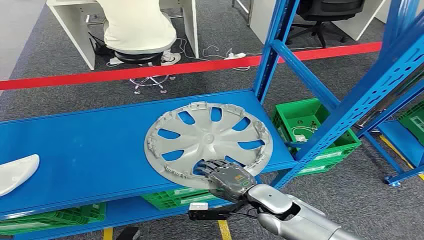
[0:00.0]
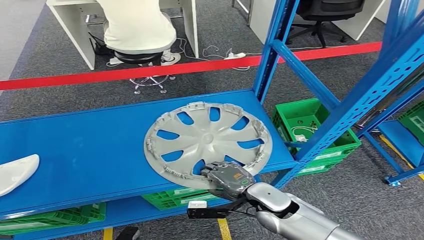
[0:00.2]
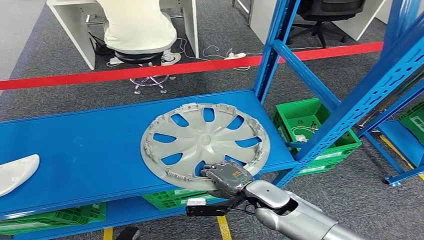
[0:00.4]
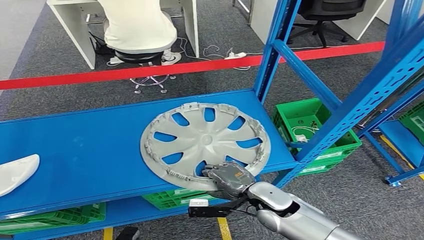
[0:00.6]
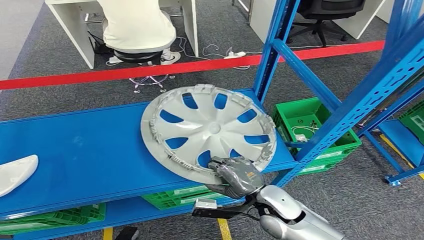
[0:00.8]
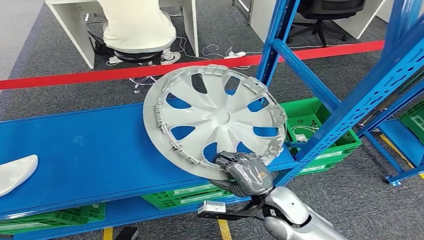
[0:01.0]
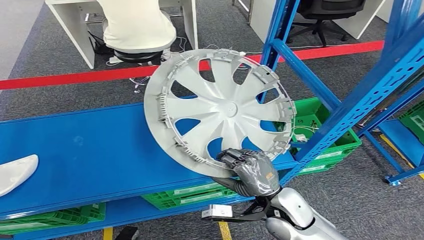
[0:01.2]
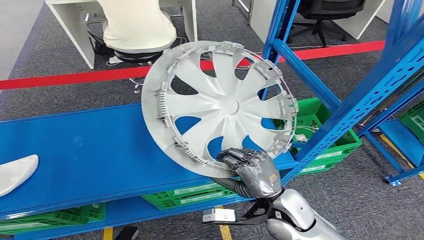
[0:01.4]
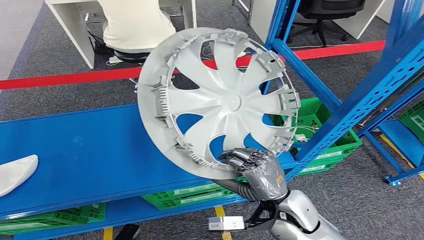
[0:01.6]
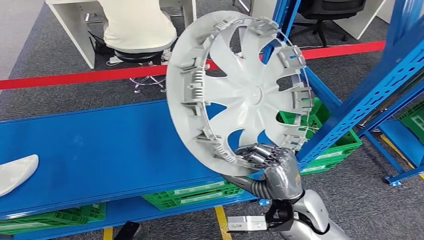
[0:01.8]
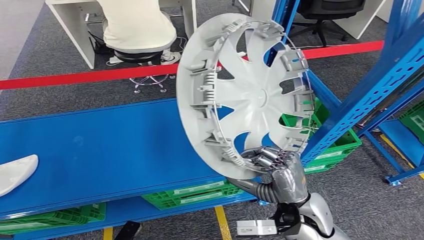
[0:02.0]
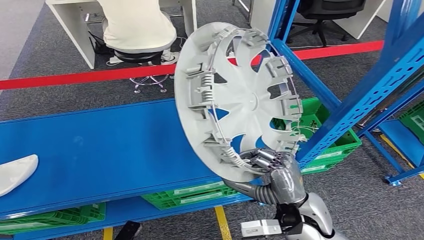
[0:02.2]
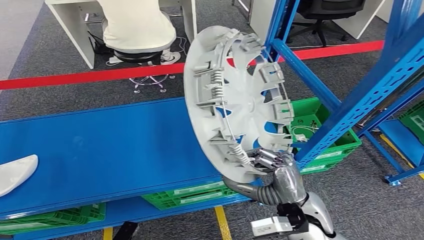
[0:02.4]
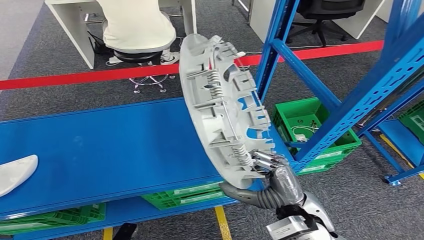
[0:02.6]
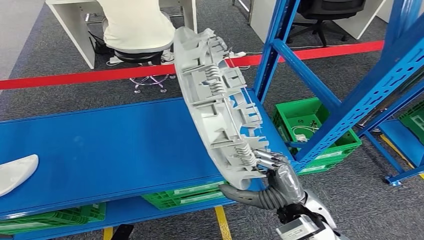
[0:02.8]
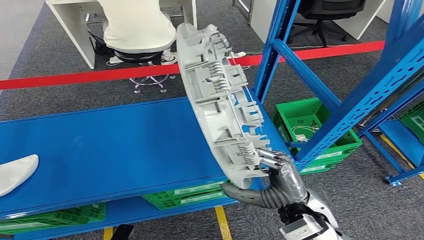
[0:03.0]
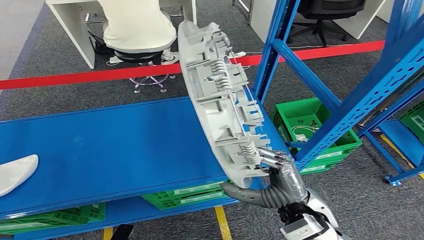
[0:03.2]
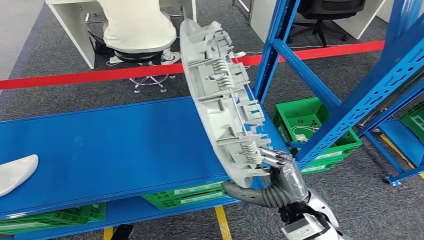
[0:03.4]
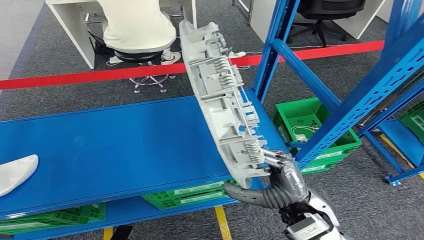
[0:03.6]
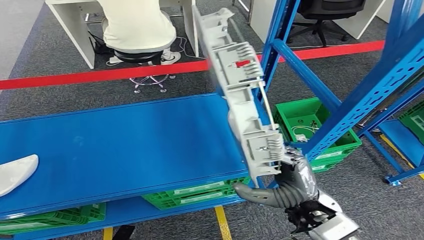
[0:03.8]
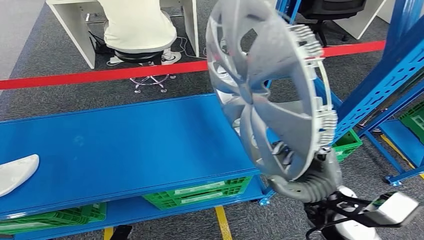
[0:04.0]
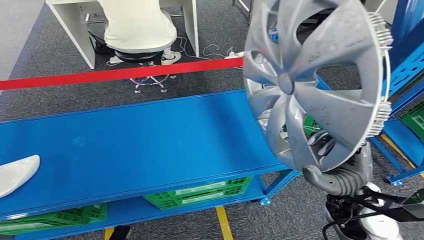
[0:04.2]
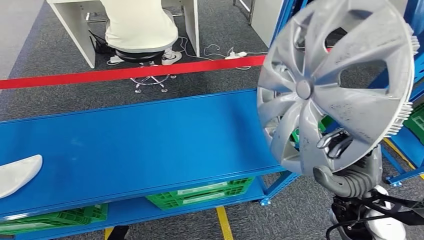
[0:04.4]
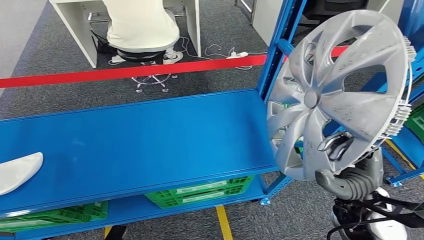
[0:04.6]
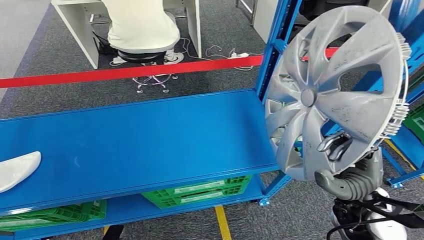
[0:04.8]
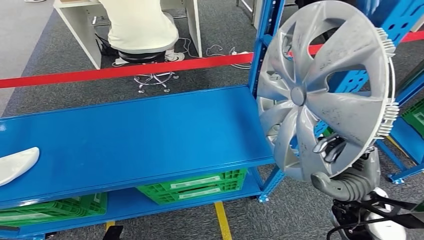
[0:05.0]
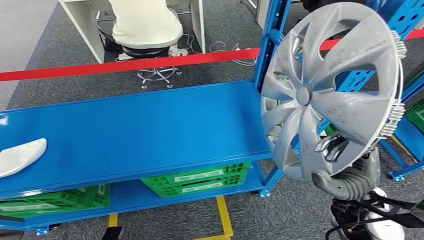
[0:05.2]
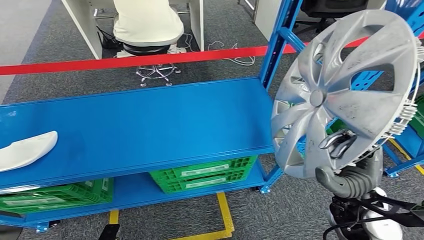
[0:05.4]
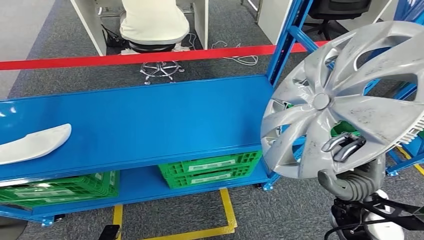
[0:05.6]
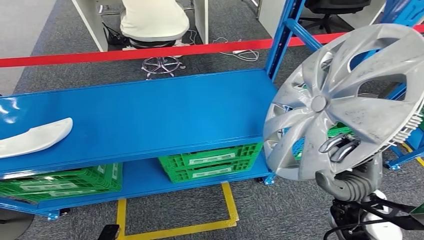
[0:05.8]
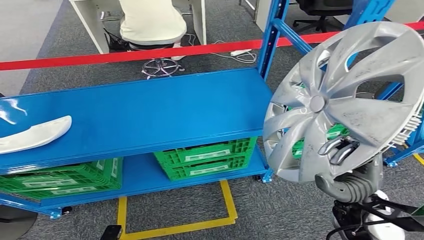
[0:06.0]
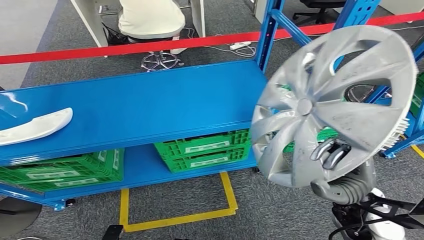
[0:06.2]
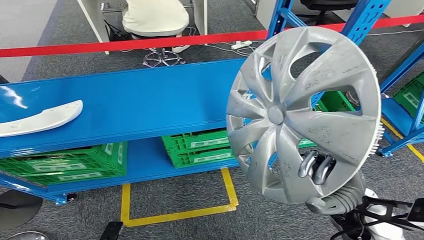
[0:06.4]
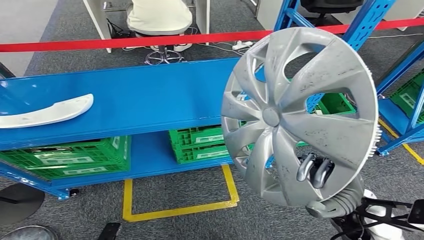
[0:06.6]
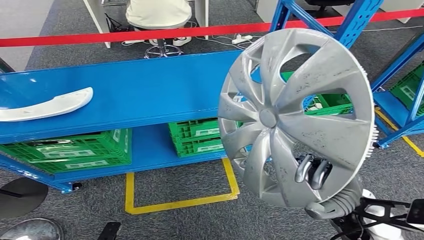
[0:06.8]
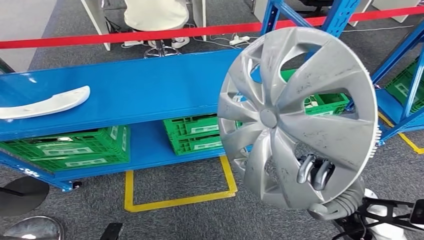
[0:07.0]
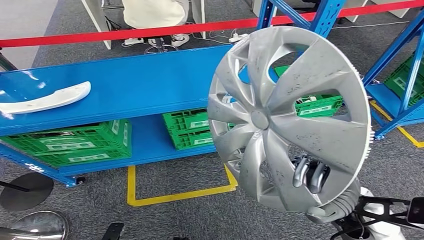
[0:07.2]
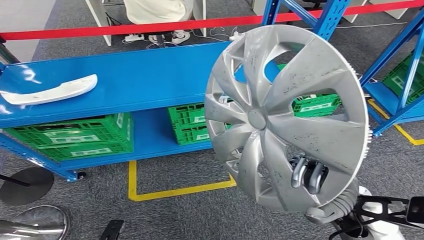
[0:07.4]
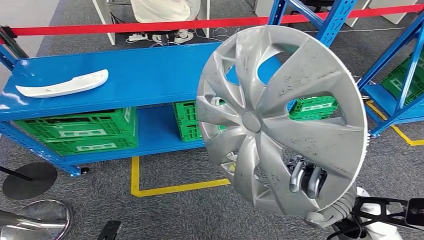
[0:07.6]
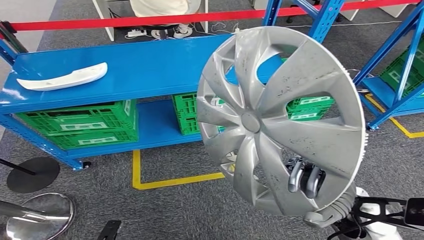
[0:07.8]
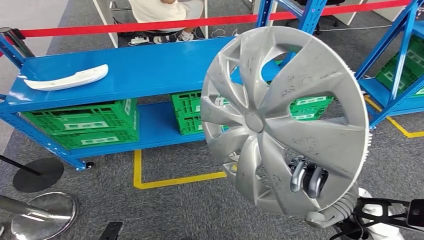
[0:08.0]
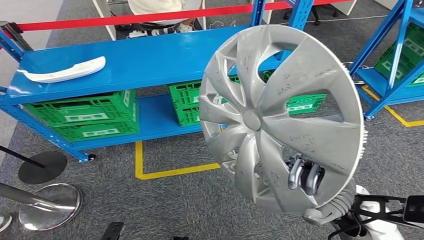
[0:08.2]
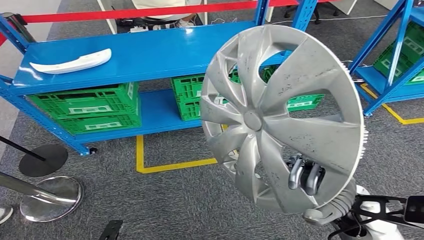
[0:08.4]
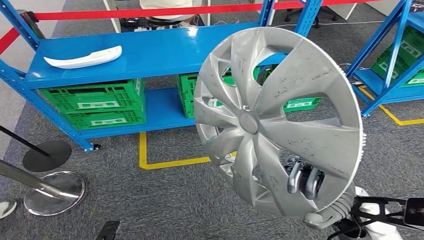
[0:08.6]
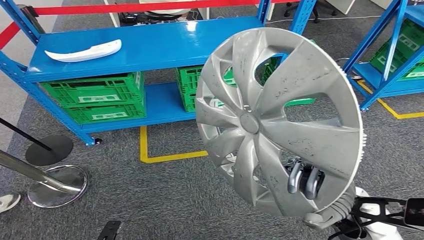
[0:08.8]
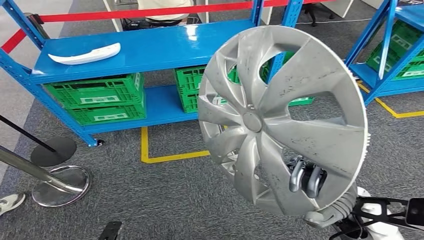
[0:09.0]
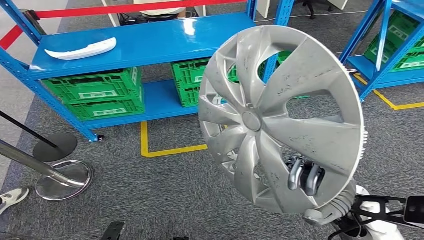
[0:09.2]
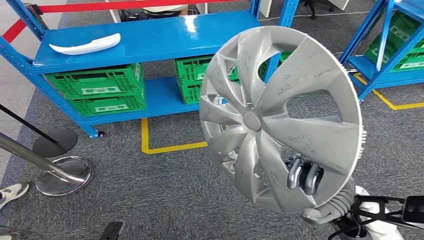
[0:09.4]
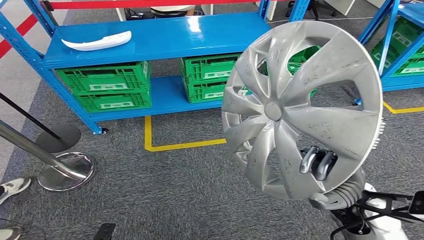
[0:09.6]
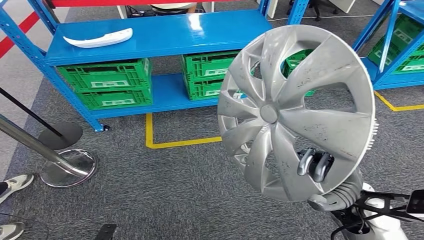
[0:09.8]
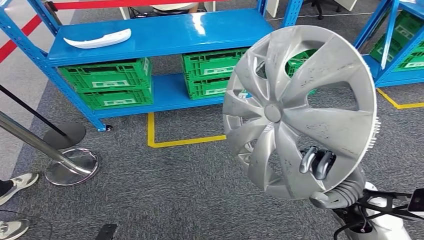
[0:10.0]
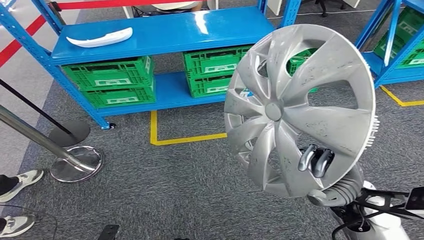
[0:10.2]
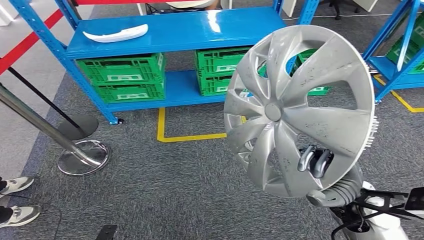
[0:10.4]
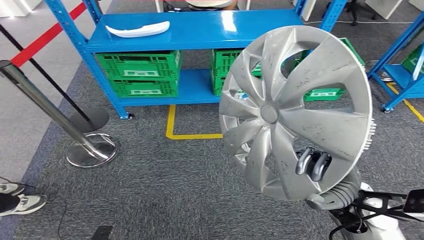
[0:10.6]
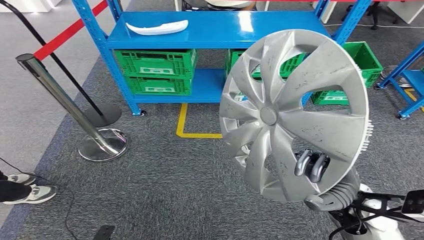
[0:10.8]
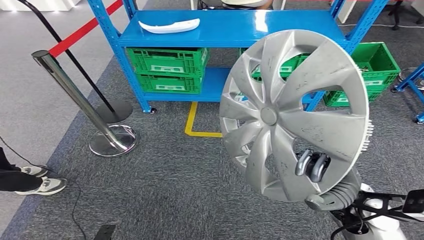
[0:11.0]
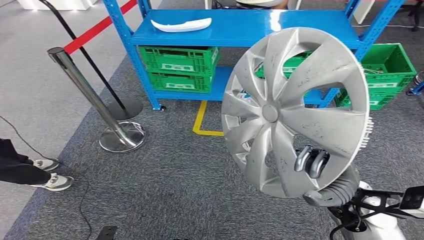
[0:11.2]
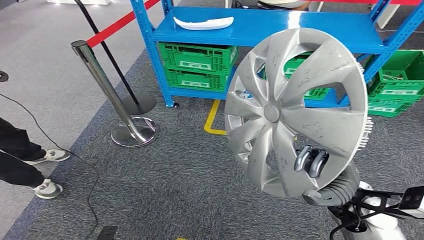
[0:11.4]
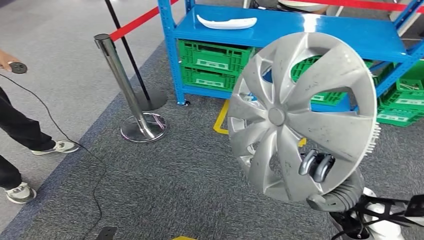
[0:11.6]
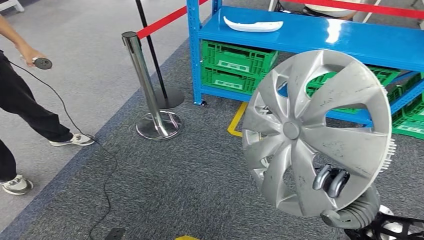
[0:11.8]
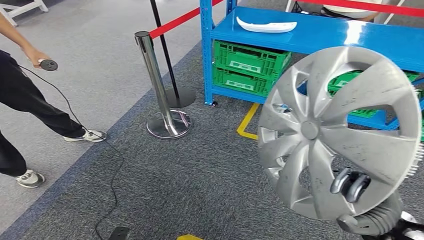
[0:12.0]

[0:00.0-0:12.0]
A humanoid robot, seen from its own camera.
Step, 0:00.0 to 0:04.6: Take small components from the rack.

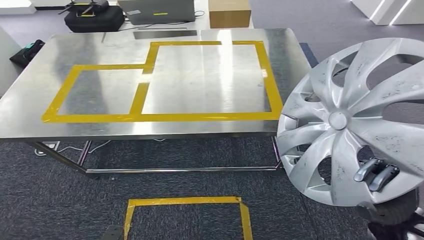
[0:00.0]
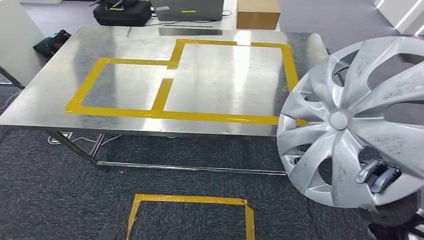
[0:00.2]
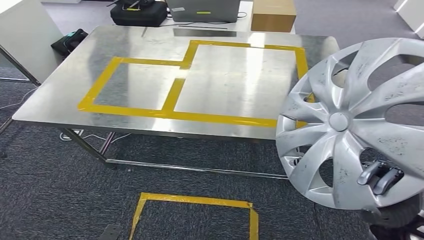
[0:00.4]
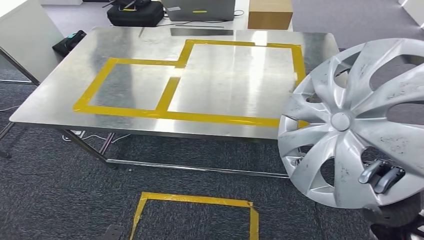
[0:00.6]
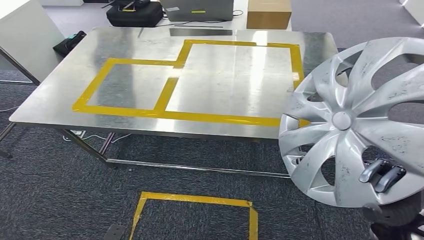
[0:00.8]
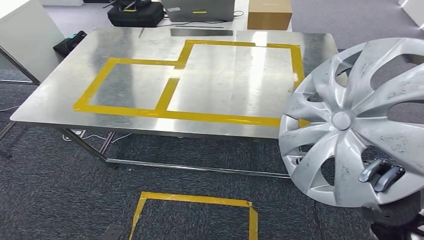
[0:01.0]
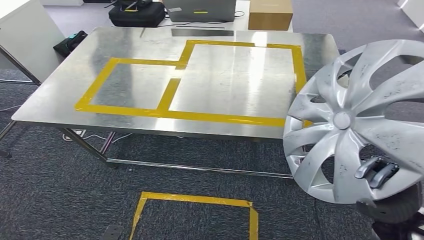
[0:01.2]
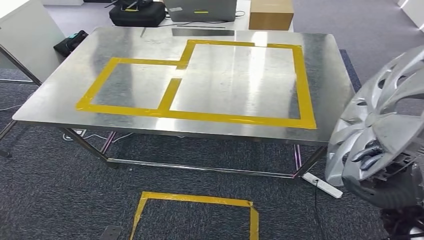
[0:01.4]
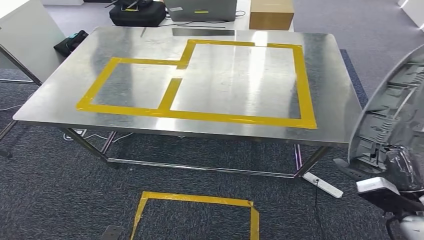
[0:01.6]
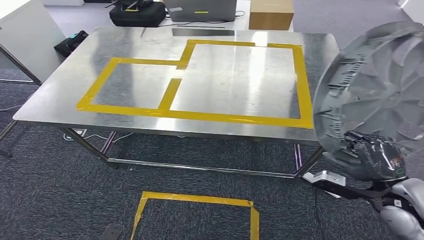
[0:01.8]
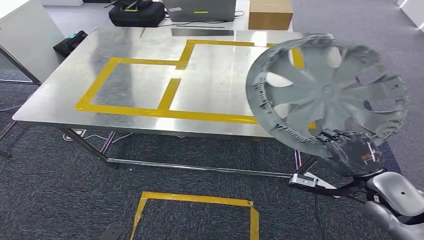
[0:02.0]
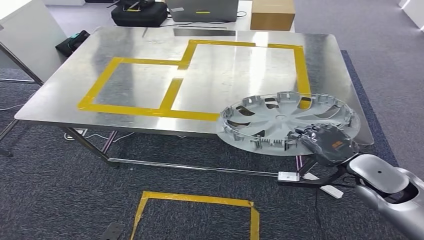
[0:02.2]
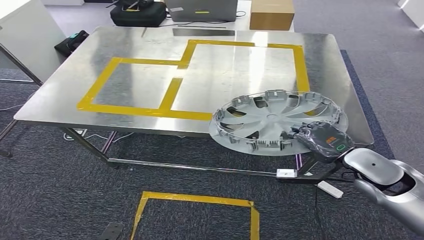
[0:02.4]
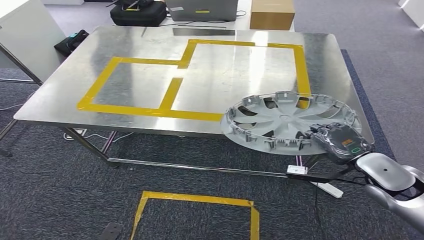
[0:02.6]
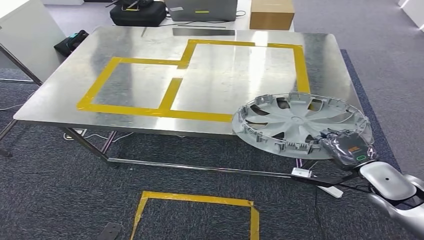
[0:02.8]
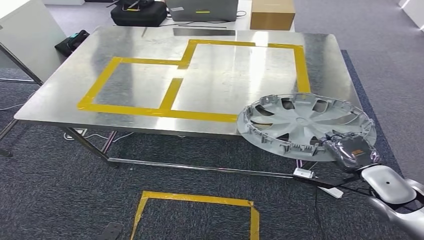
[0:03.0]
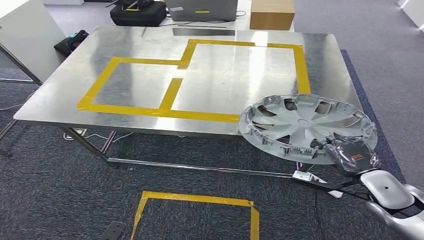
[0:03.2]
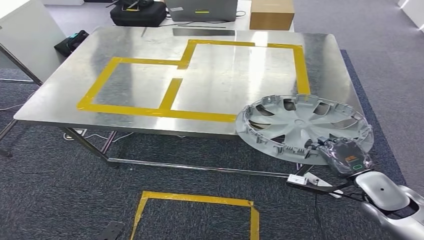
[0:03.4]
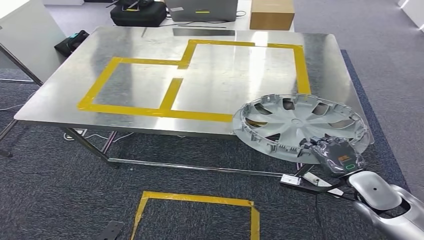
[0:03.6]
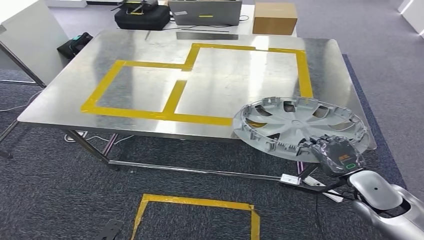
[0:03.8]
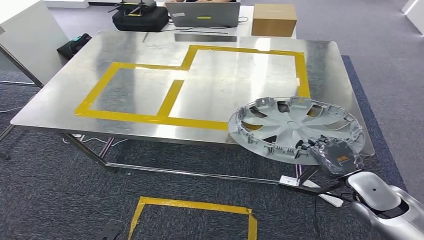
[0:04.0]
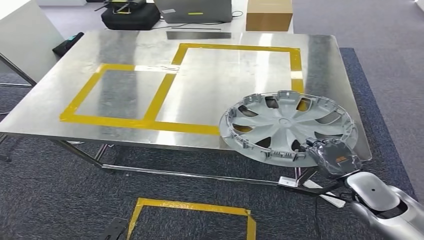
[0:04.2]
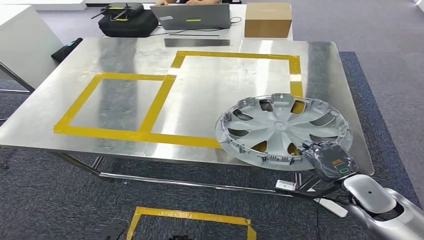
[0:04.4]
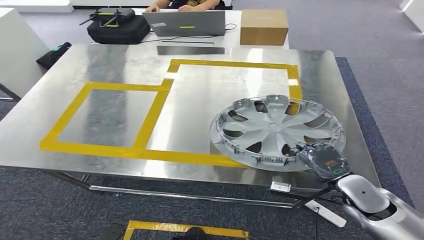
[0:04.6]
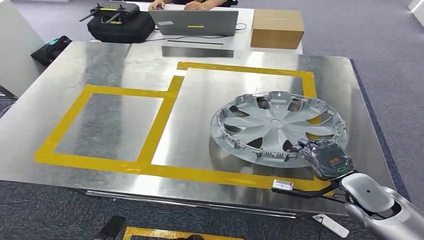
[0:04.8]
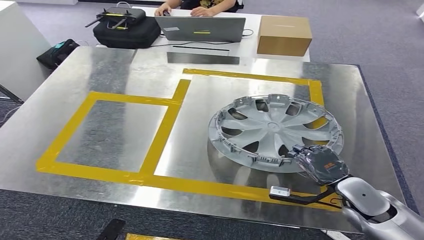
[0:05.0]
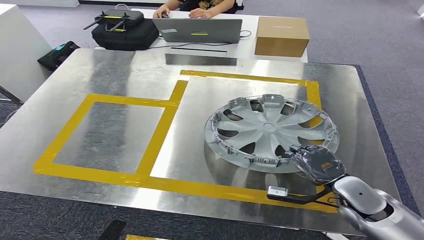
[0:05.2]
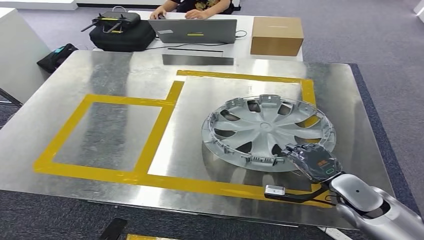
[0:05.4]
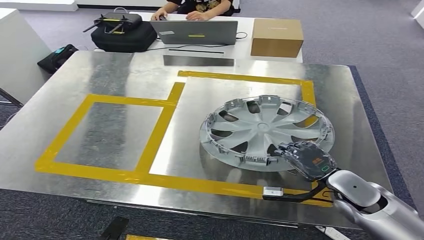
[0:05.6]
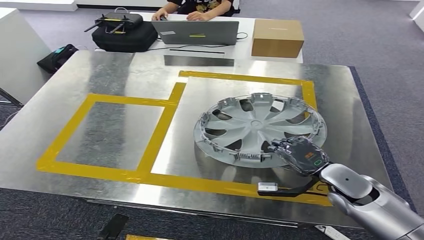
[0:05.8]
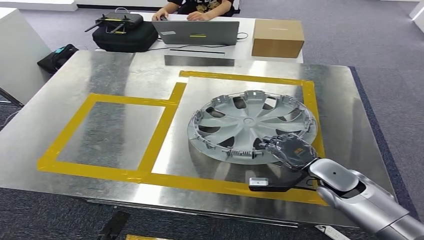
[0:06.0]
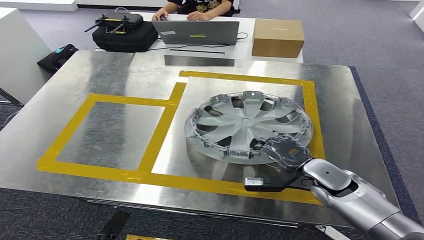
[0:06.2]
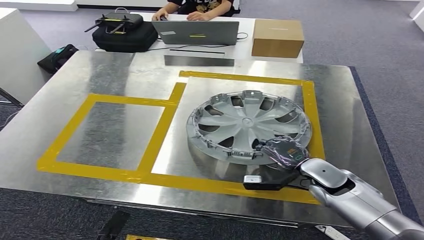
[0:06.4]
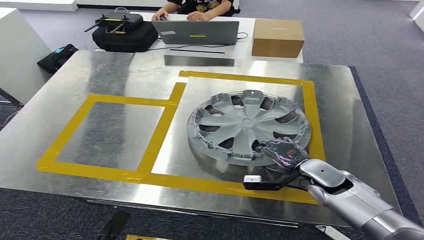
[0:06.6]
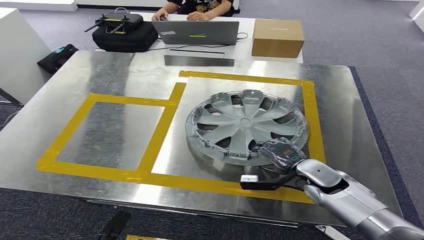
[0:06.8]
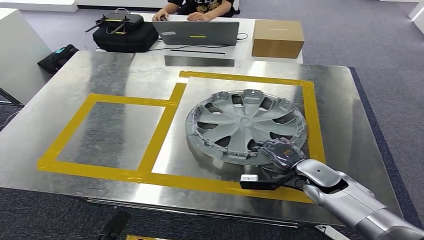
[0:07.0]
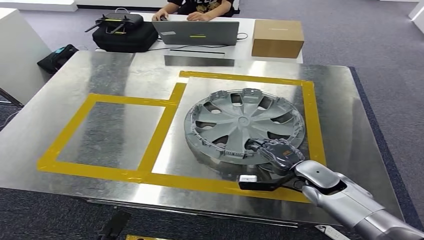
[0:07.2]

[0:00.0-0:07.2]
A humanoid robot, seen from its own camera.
0:01.4 to 0:02.8: The right hand travels forward by approximately 10 cm.
0:05.8 to 0:07.2: The right hand changes place by roughly 5 cm.
